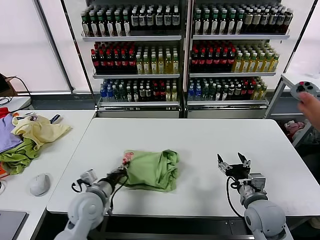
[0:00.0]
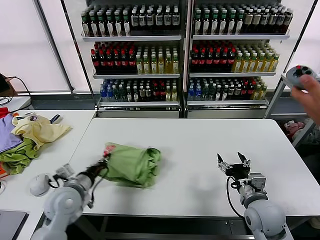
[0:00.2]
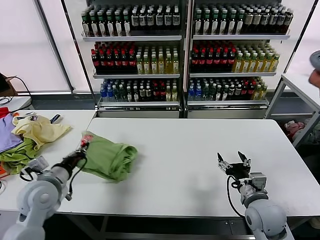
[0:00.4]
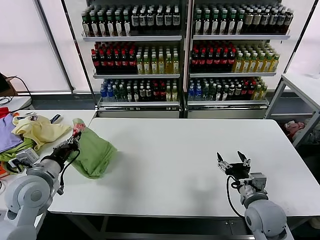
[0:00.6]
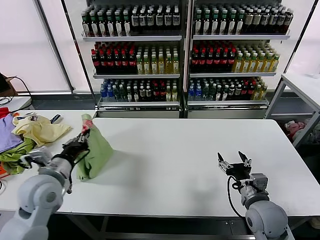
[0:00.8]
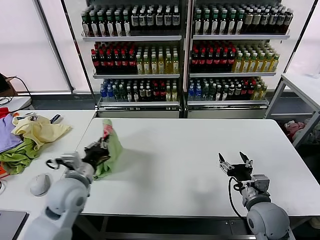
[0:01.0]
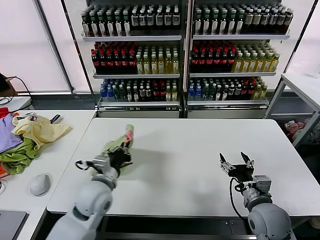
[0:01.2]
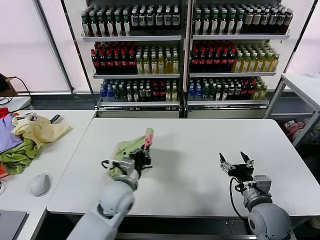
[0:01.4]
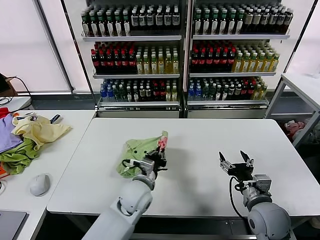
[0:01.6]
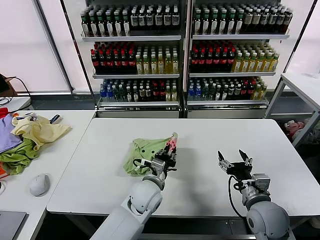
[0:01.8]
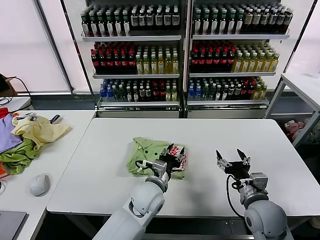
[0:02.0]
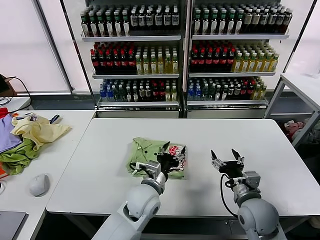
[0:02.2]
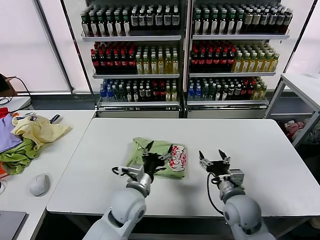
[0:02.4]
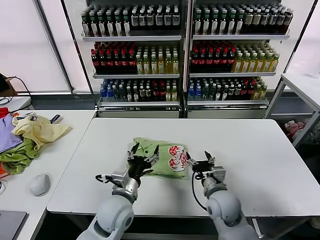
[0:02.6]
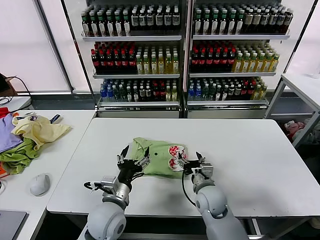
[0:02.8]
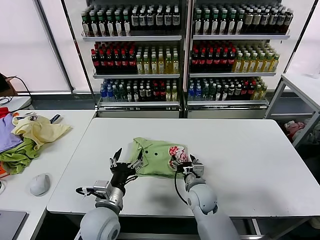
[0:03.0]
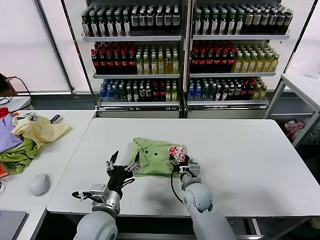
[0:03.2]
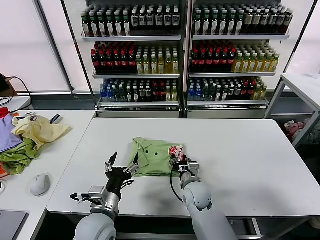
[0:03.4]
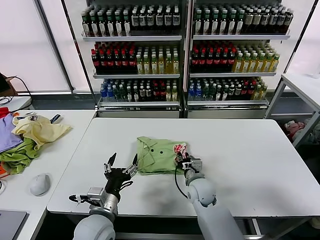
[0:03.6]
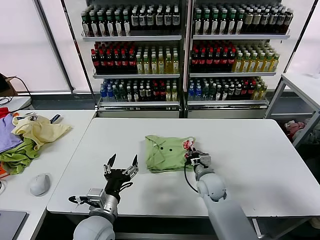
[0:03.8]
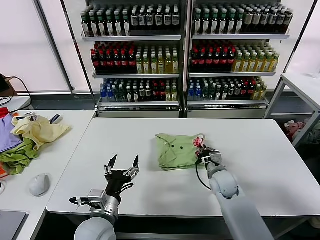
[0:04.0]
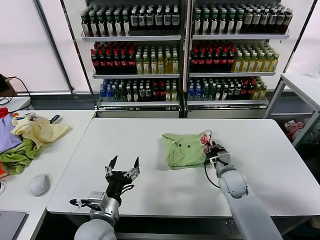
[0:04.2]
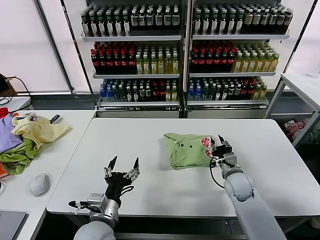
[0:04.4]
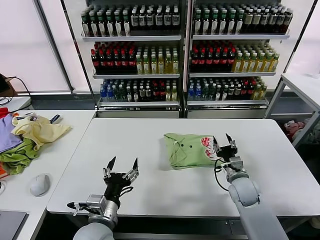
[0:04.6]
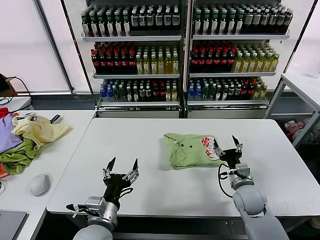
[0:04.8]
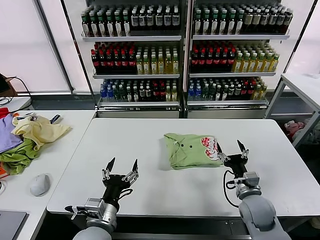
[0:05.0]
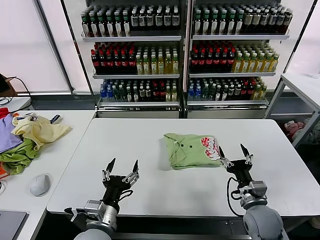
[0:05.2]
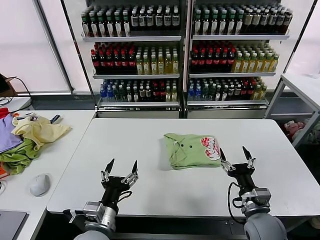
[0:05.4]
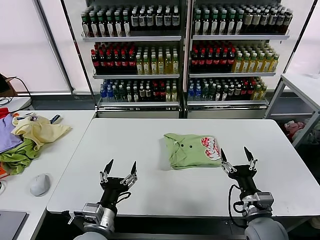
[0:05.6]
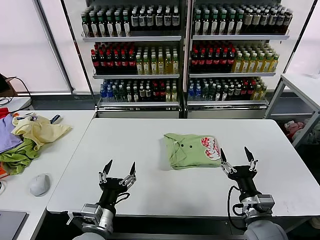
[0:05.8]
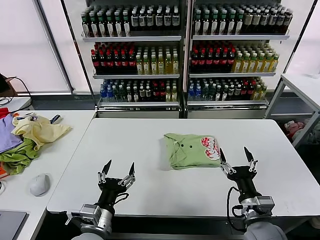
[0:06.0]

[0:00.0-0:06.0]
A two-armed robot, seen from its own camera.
Task of the whole recording: fold and organize the clothes.
Step, 0:00.0 to 0:02.0: Flip the folded clothes over with left gripper.
Step, 0:02.2 to 0:04.4: Drag the clothes to the center of the table.
0:00.0 to 0:01.6: The left gripper is displaced to the right by about 15 cm.
0:01.6 to 0:03.0: The right gripper shifts roughly 20 cm to the left, forward and downward. Meanwhile the left gripper travels backward and to the left by some 10 cm, and opens.
0:03.0 to 0:04.4: The right gripper moves to the right, roughly 15 cm, and closes its fingers.
0:04.4 to 0:06.0: The right gripper is displaced backward by some 20 cm, and opens up.
